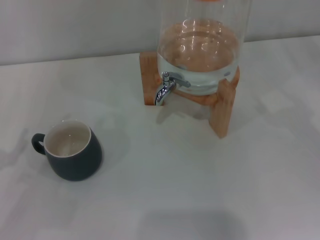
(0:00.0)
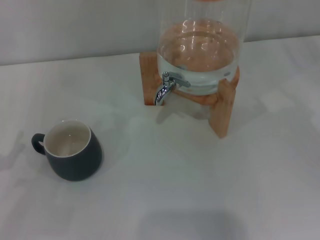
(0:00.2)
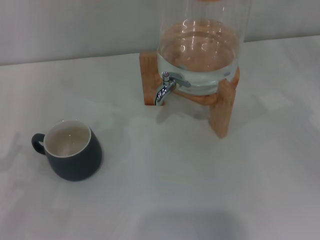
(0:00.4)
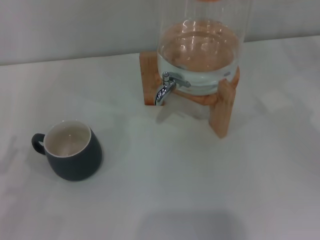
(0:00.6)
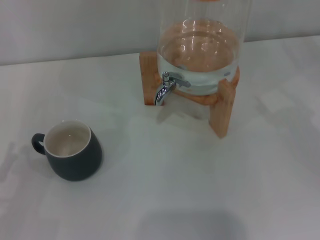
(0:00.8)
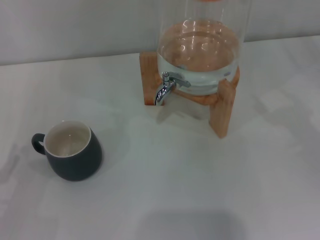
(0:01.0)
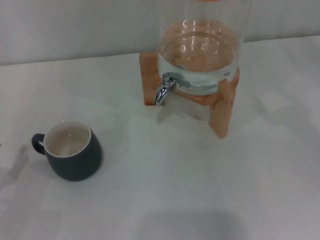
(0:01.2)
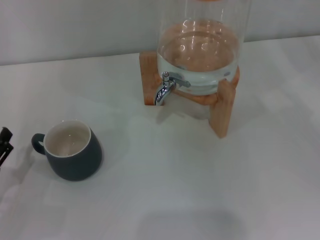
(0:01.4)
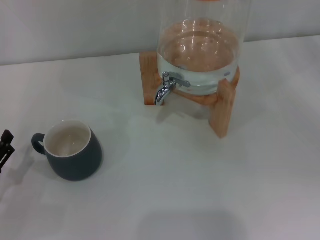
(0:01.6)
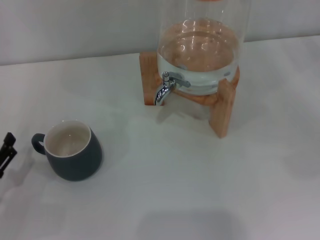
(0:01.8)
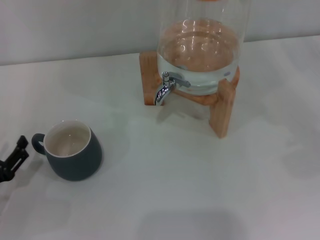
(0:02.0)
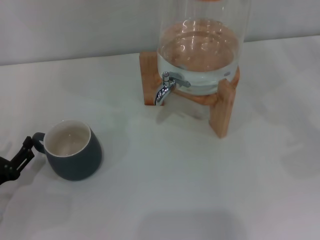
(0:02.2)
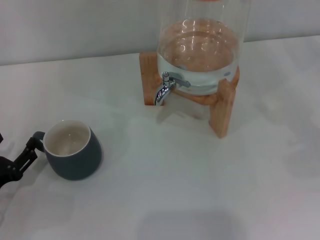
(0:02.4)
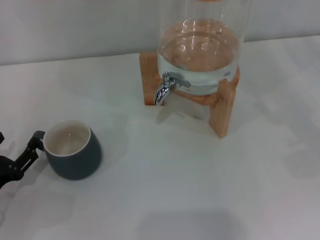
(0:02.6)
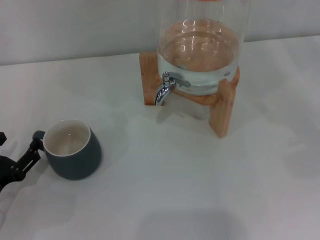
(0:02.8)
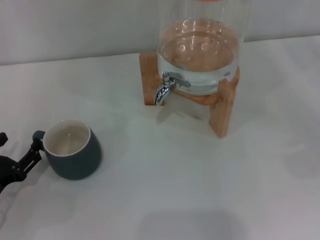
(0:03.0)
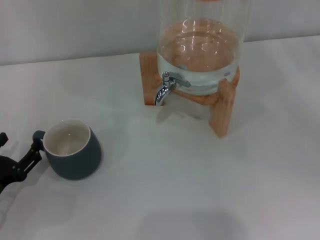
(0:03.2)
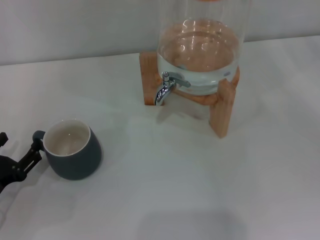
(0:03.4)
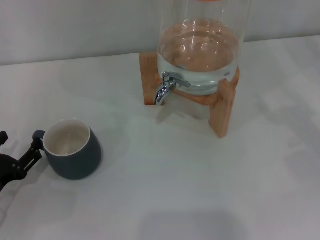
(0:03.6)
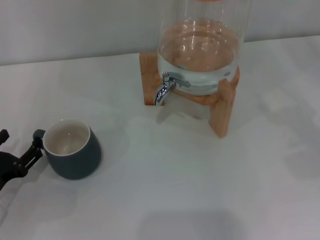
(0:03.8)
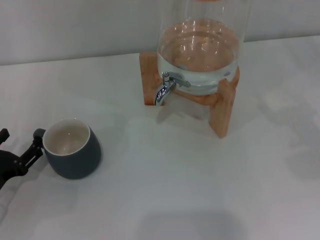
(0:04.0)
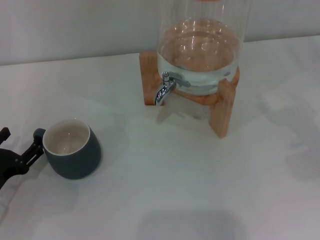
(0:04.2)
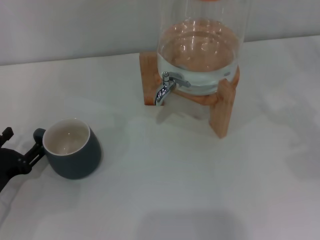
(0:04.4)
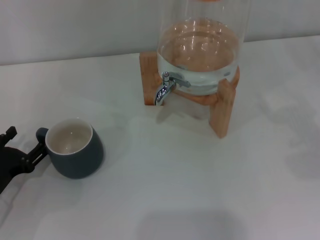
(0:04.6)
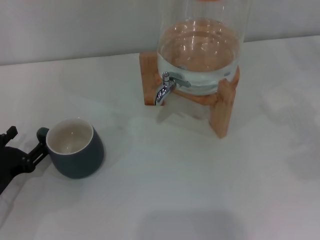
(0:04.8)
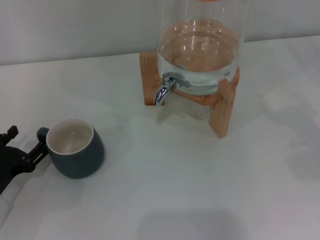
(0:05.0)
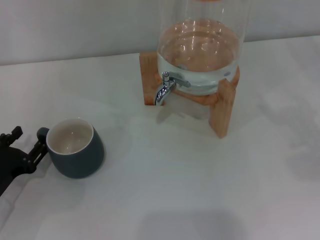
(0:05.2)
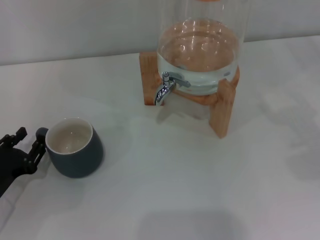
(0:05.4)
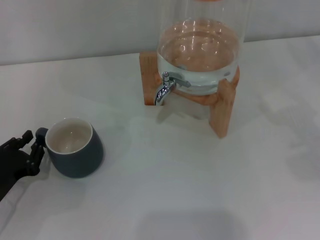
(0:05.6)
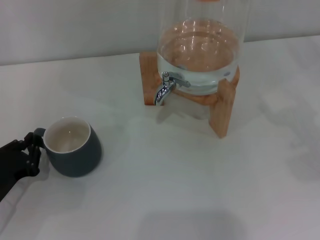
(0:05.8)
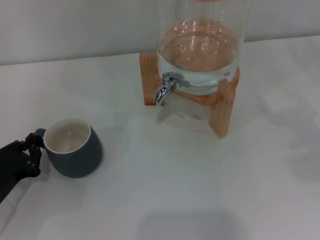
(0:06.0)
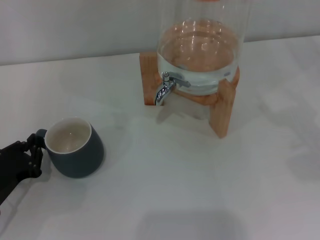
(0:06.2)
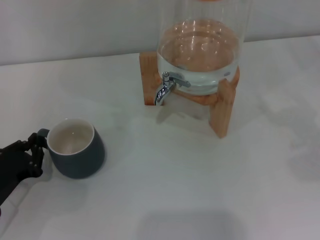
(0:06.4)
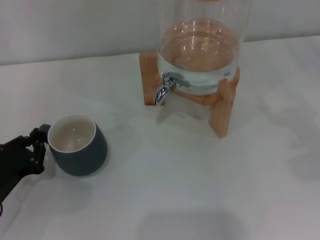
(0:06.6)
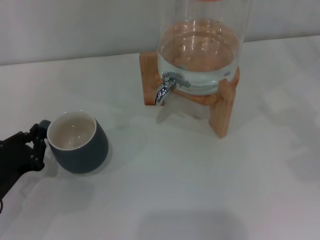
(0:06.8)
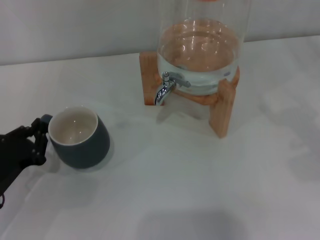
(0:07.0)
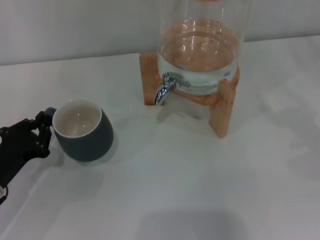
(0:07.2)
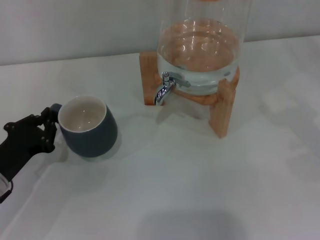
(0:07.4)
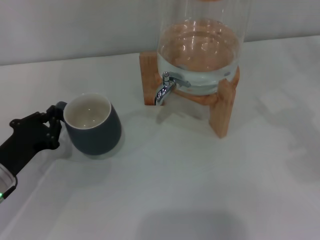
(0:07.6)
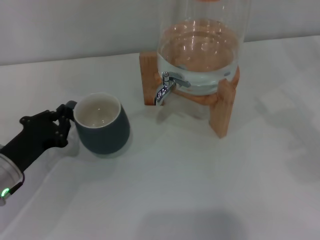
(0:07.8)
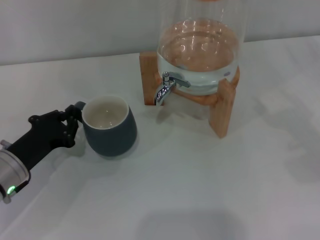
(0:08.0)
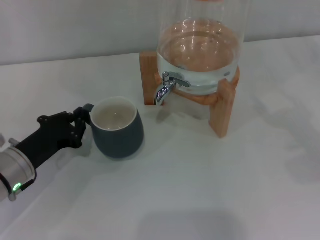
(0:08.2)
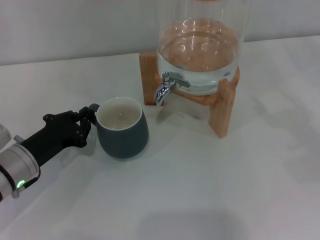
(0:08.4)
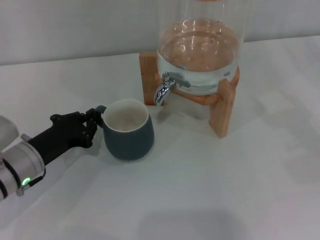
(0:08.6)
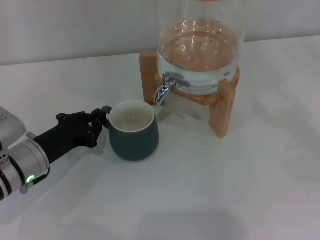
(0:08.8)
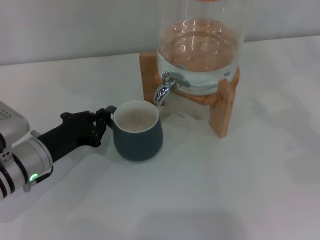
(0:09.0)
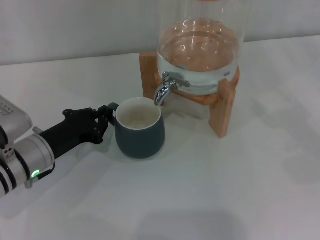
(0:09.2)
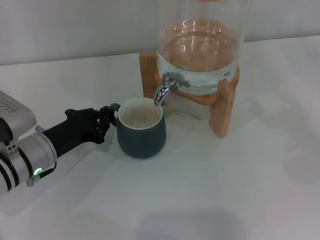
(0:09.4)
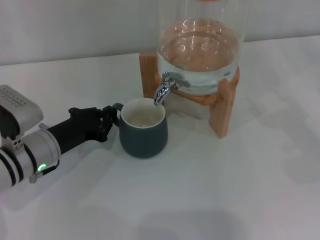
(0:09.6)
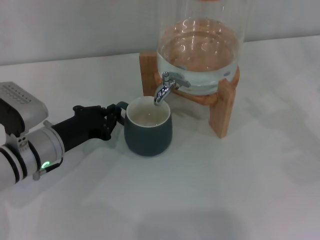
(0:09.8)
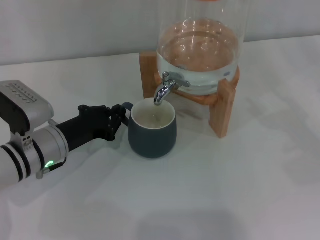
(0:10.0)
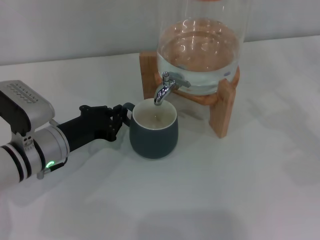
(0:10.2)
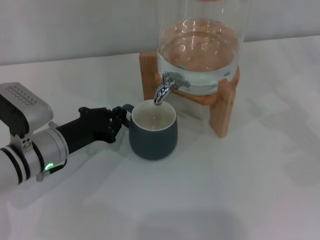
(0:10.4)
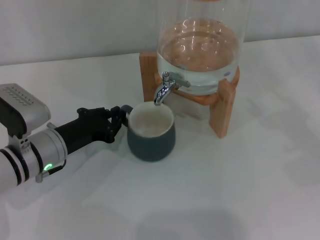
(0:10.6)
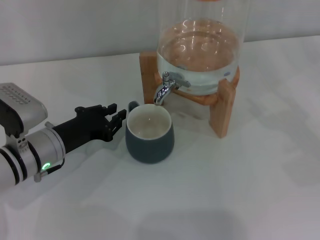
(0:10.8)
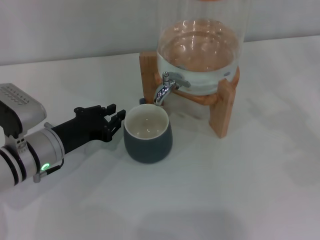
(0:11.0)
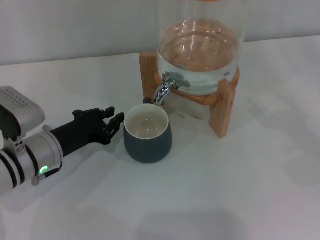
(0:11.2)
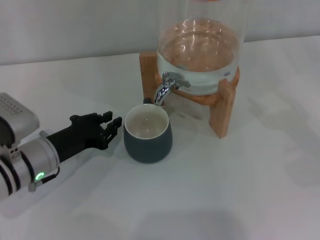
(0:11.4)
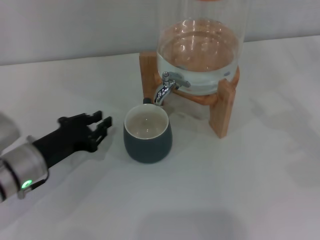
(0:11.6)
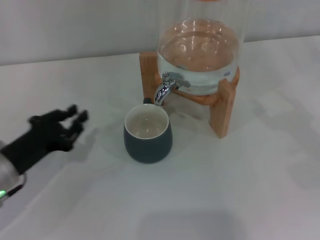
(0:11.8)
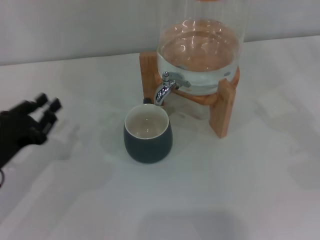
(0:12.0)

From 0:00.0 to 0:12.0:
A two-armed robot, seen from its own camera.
Task of the whole recording: the left gripper pick up the black cup and place it horizontally under the faucet, the right gripper turn on the faucet to fill the cup, and then turn off the faucet.
Step, from 0:00.0 to 0:11.6: Move the cup beneath the water dispenser nozzle with the left gripper.
From 0:00.0 to 0:01.6: The left gripper shifts approximately 5 cm downward.
From 0:01.6 to 0:04.4: The grippers stay close to where they were, moving slightly.
From 0:04.4 to 0:06.0: The left gripper closes up.
From 0:06.0 to 0:07.6: The left gripper changes place by approximately 5 cm.
From 0:07.6 to 0:09.0: The left gripper moves roughly 5 cm.
From 0:09.0 to 0:10.4: There are only small adjustments of the grippers.
From 0:10.4 to 0:12.0: The left gripper shifts approximately 10 cm to the left and backward.

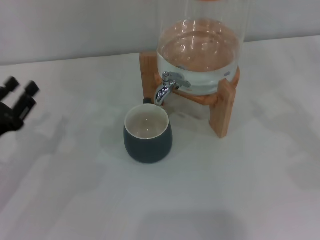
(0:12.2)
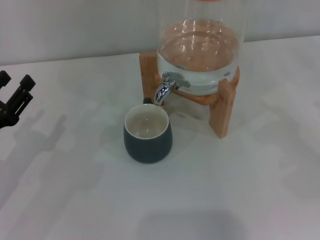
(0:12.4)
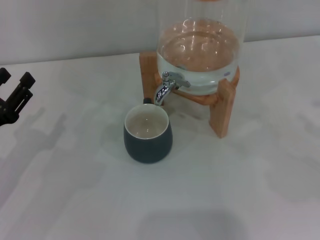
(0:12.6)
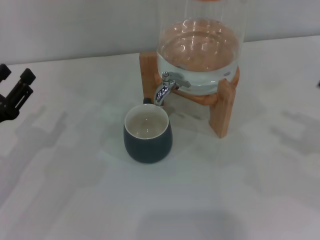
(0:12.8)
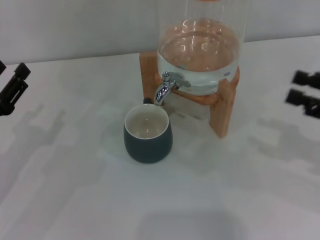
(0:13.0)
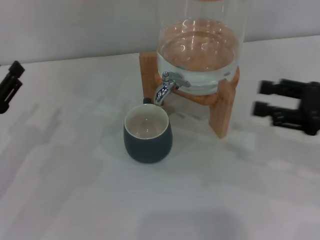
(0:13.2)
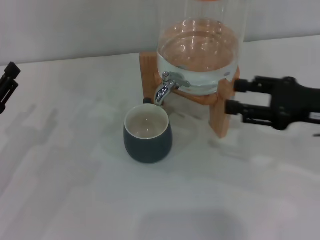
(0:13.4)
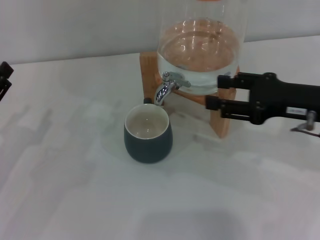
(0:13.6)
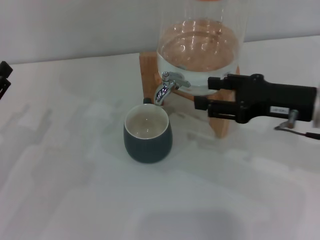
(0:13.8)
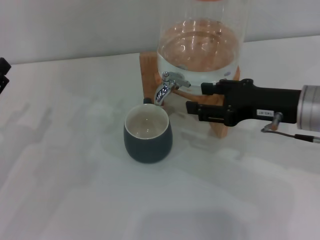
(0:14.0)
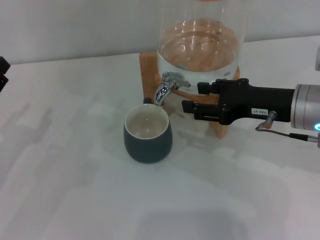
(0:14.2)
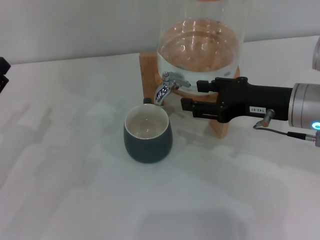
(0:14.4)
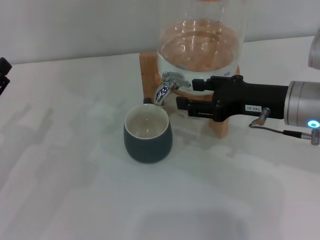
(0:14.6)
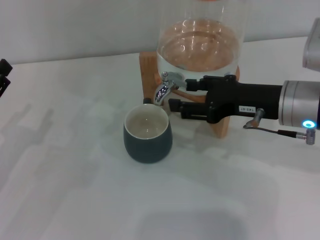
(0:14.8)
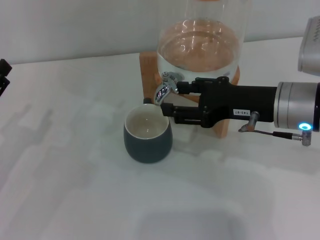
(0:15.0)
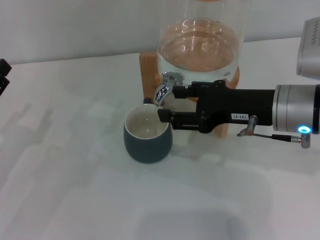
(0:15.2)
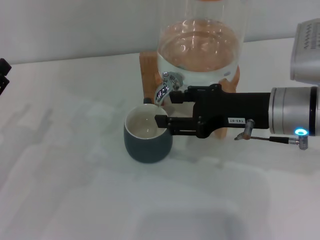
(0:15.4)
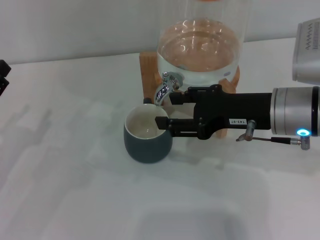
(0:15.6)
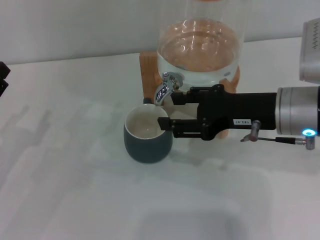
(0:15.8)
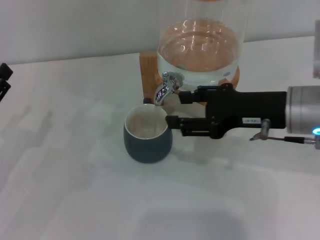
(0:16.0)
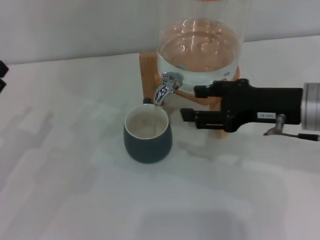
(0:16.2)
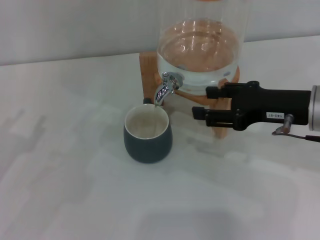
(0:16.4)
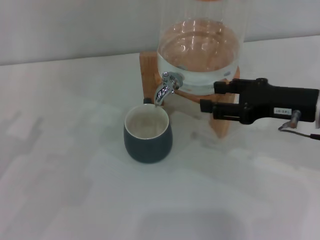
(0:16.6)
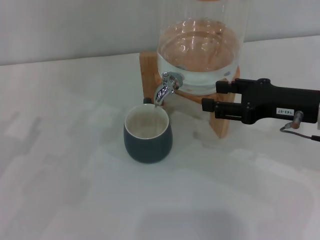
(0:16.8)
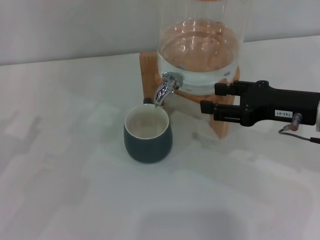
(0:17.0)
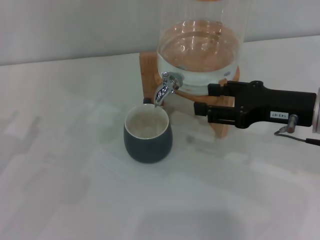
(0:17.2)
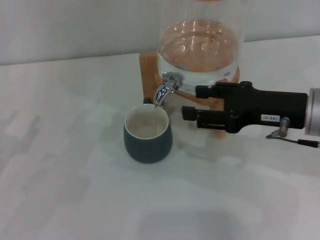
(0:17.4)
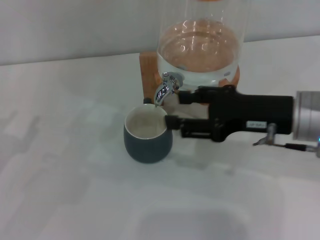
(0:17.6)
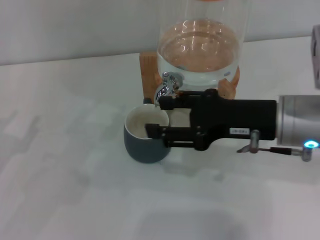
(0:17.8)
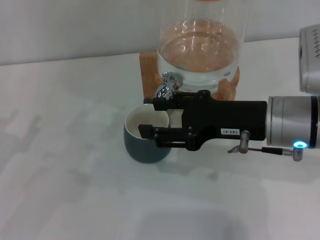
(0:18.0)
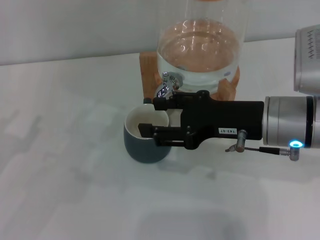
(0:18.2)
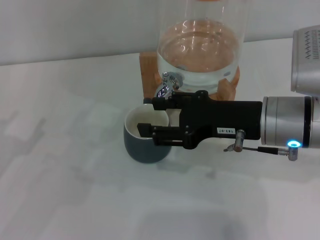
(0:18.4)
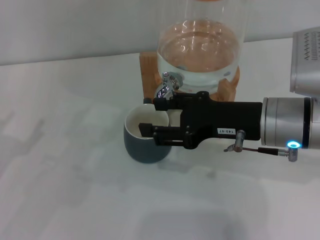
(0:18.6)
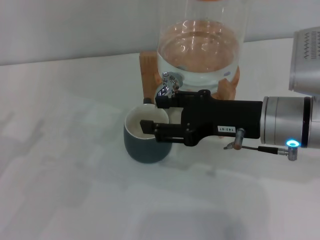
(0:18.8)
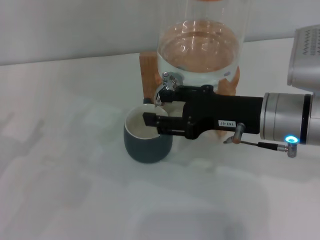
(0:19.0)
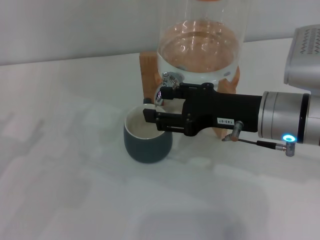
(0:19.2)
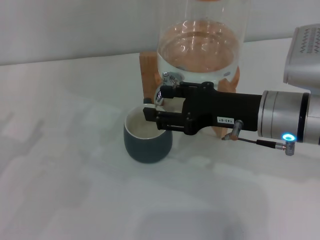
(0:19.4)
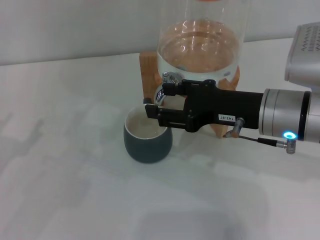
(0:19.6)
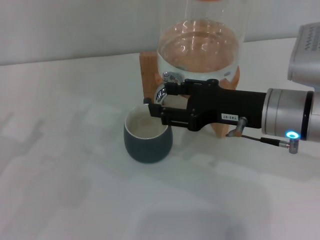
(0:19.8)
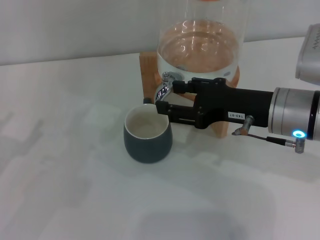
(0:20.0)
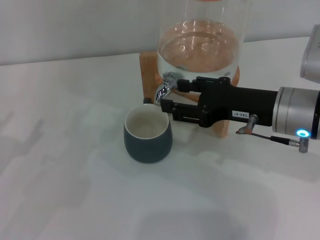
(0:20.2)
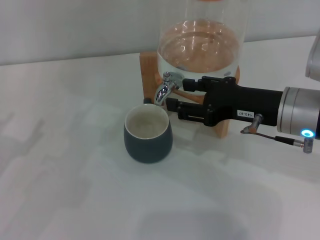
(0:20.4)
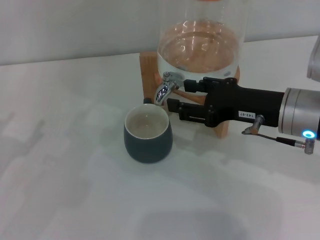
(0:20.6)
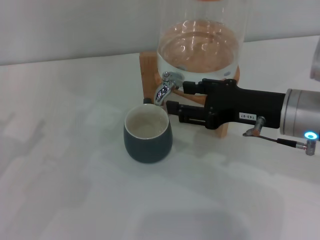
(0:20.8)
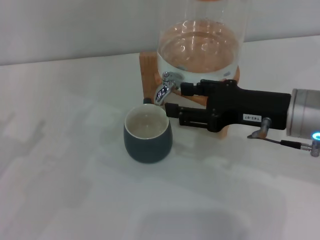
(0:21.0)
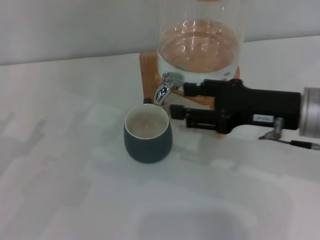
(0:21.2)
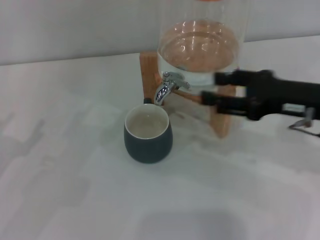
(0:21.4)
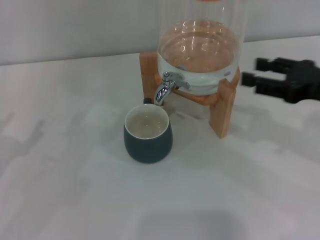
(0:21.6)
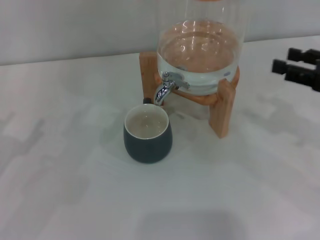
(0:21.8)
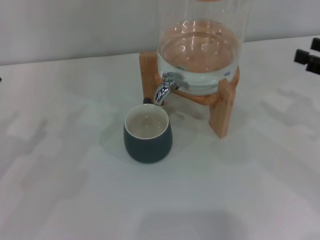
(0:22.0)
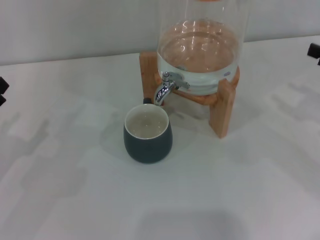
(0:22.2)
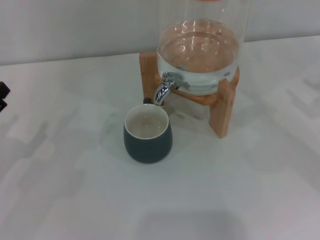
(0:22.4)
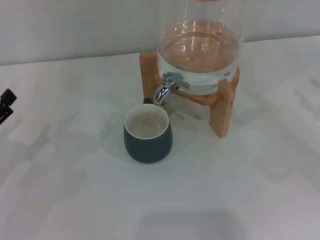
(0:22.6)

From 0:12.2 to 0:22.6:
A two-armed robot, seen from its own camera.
Task of the whole recording: the left gripper pick up the black cup and place it horizontally under the faucet, the right gripper turn on the faucet to fill the cup, and then turn off the faucet.
Step, from 0:12.2 to 0:16.2: Open the dispenser valve and fill the cup with water with the right gripper.
Step, from 0:16.4 to 0:21.2: Close the dispenser valve with the right gripper.
From 0:12.2 to 0:13.6: The right gripper travels to the left by about 15 cm.
From 0:13.6 to 0:15.2: The right gripper travels to the left by approximately 5 cm.
From 0:15.2 to 0:16.6: The right gripper travels to the right by some 5 cm.
From 0:16.6 to 0:18.2: The right gripper goes approximately 10 cm to the left.
From 0:18.2 to 0:21.2: The grippers make only small movements.
From 0:21.2 to 0:22.6: The right gripper goes roughly 20 cm to the right.
